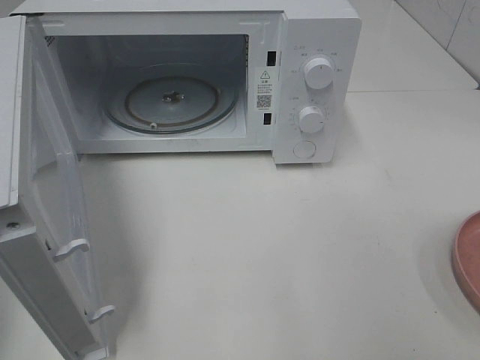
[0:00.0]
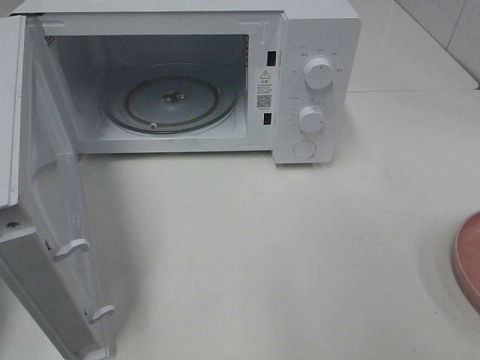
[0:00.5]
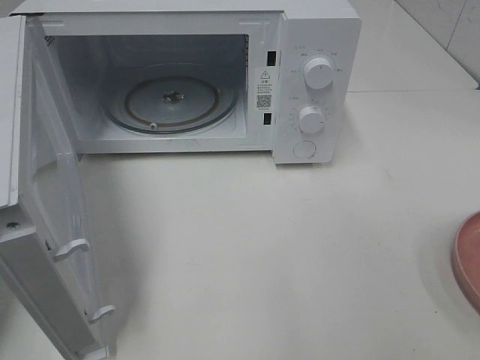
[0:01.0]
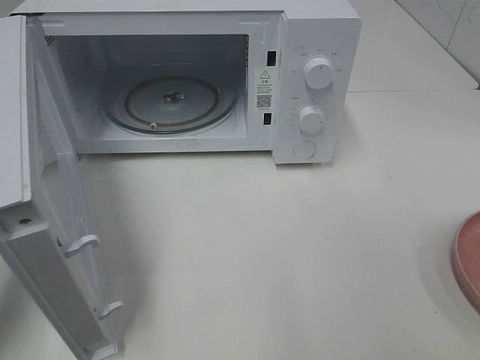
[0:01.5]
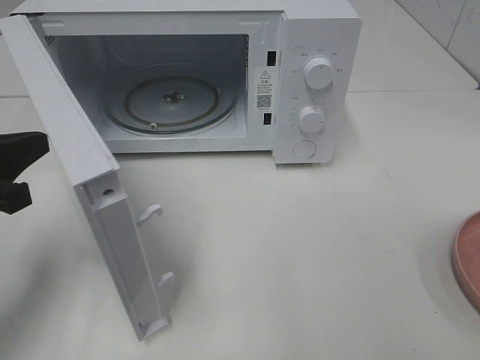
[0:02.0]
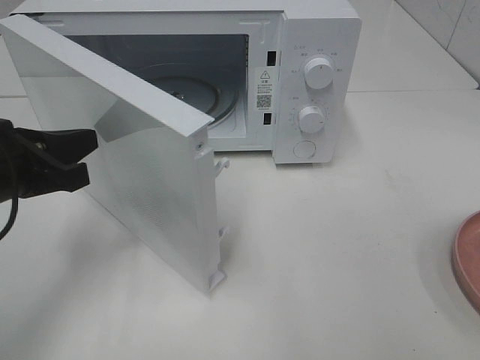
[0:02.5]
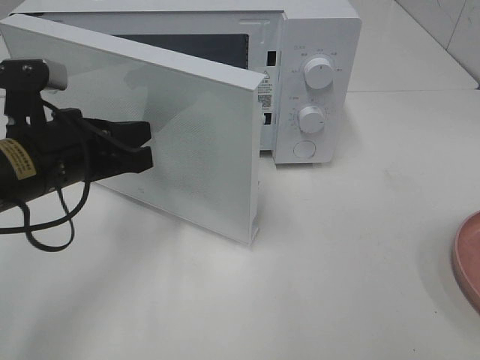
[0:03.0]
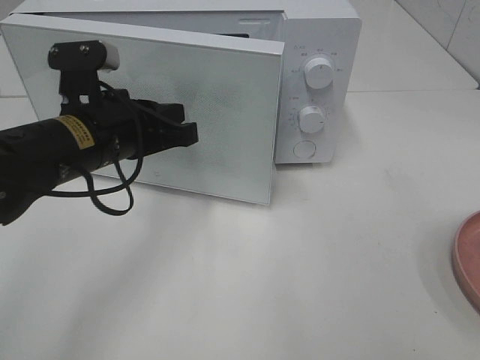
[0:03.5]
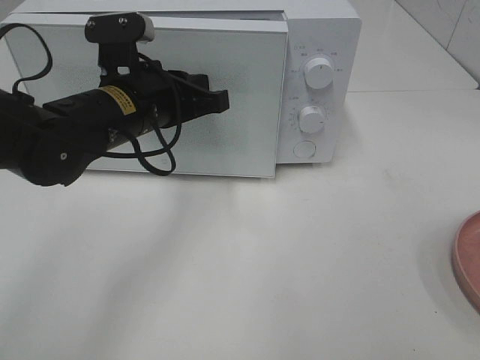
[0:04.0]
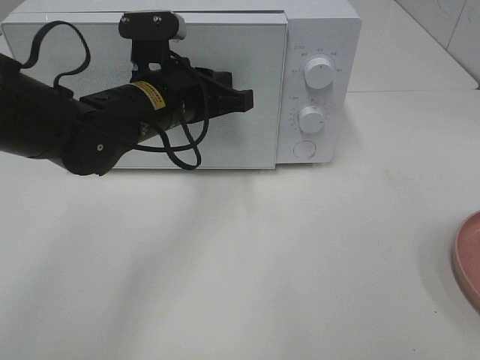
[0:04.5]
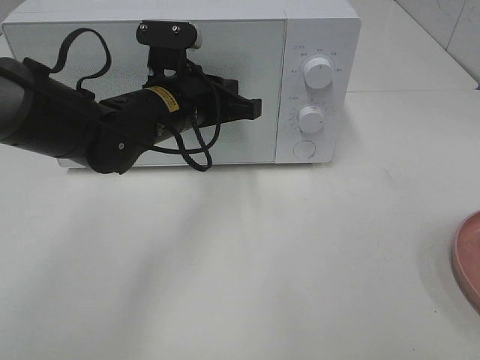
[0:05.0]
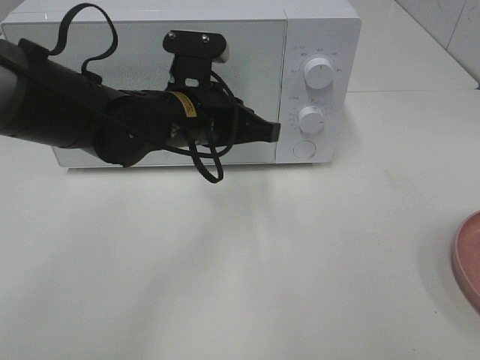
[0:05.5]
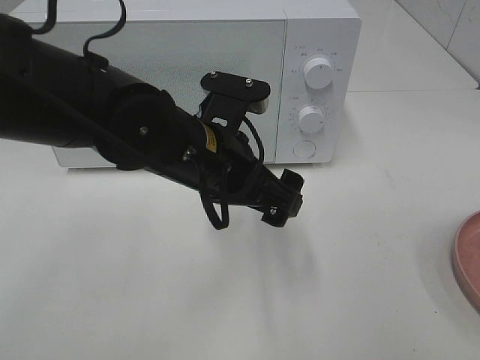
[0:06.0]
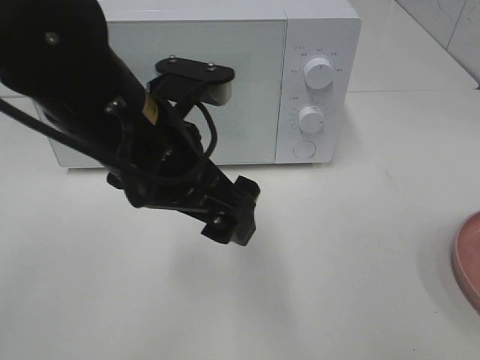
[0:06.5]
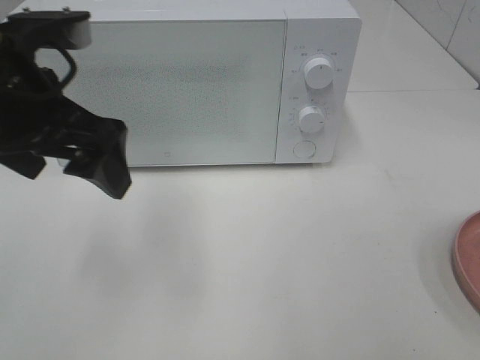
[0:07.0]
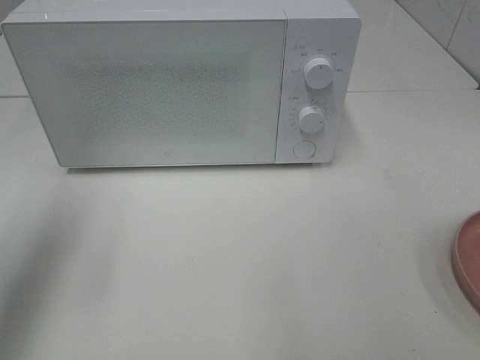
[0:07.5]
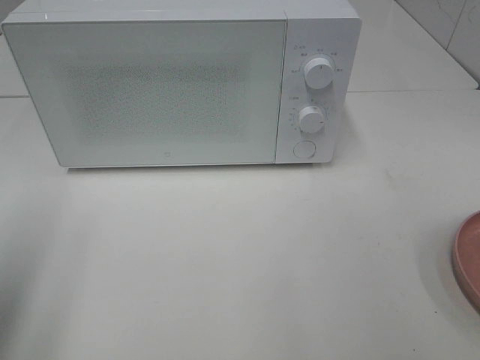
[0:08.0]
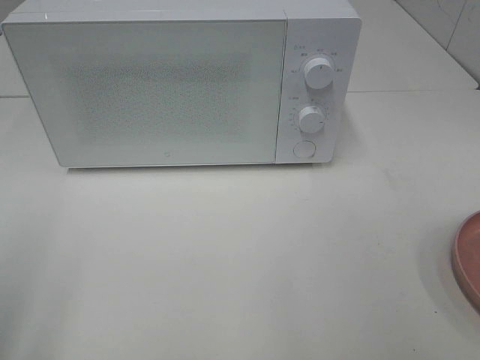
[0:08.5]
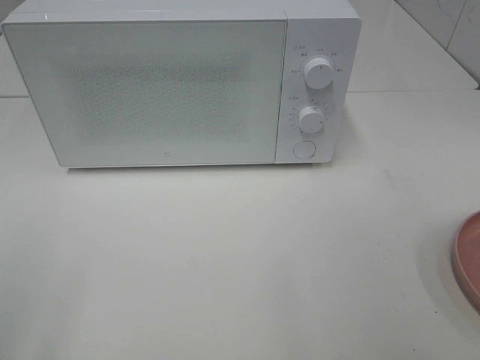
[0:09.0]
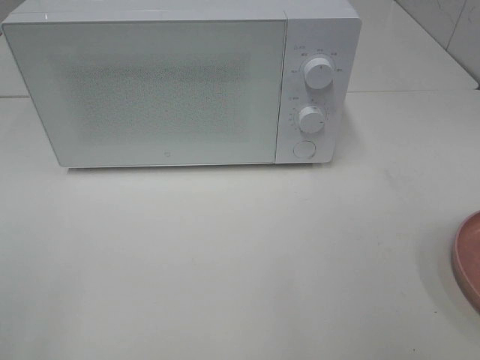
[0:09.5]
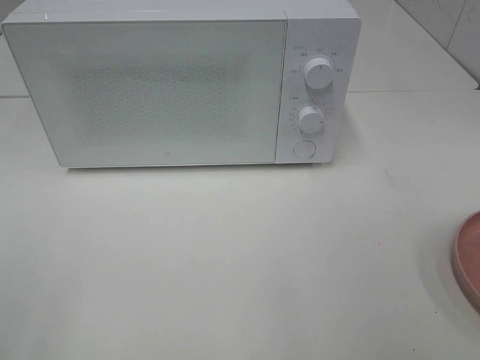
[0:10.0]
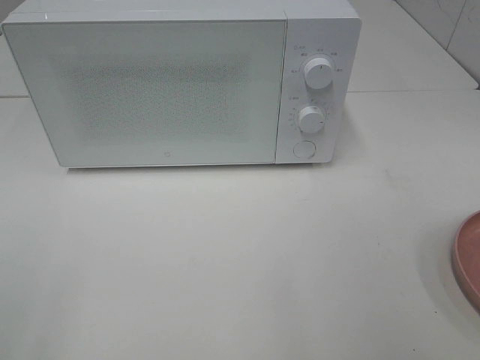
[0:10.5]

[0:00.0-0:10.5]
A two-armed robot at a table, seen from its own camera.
Task of the whole recording: Heat the burger.
Step, 0:00.0 to 0:05.0: Left hand: close the microwave door.
0:00.0 to 0:02.0: The left gripper is displaced forward, downward and to the right by about 15 cm.
0:02.0 to 0:04.0: The left gripper travels to the right and forward by some 20 cm.
0:04.0 to 0:06.5: The left gripper travels backward and upward by roughly 10 cm, and opens its fingers.
0:06.5 to 0:08.5: The left gripper heads to the left and backward, covering about 30 cm.

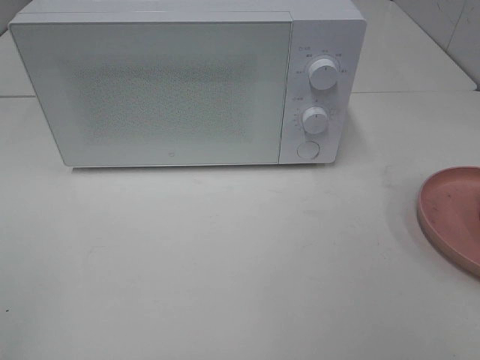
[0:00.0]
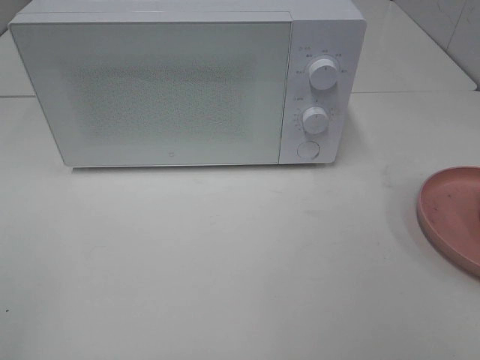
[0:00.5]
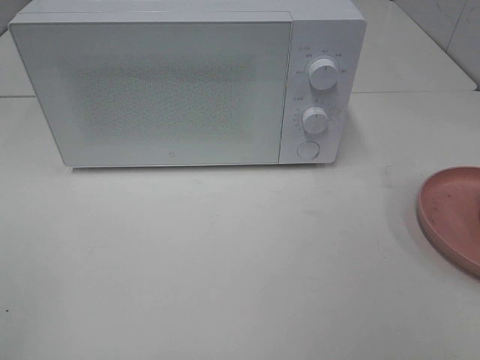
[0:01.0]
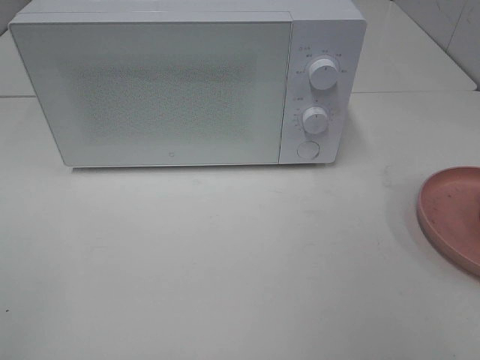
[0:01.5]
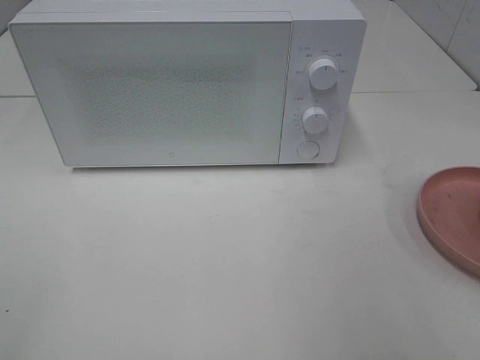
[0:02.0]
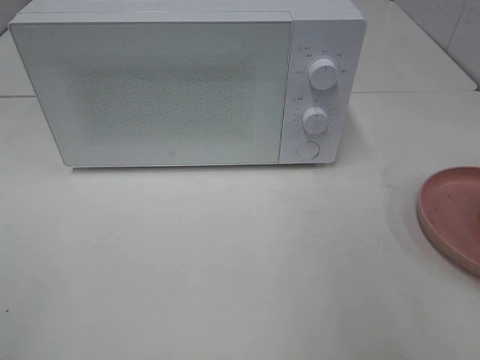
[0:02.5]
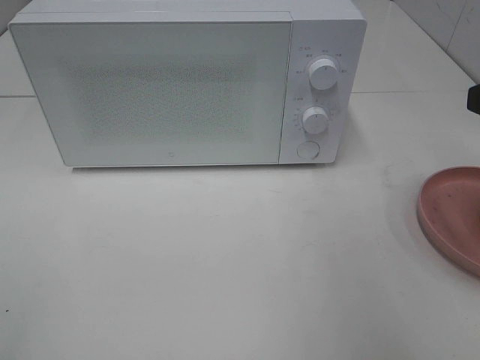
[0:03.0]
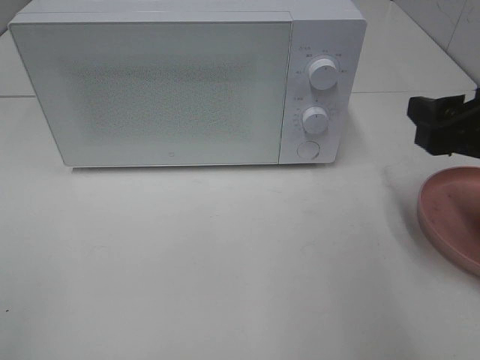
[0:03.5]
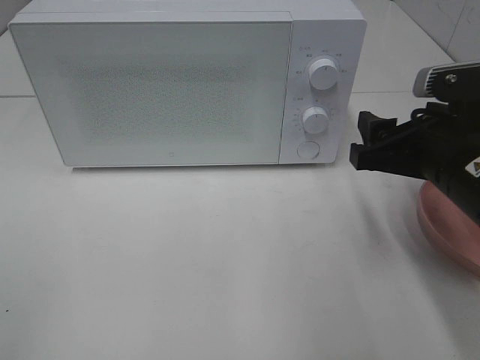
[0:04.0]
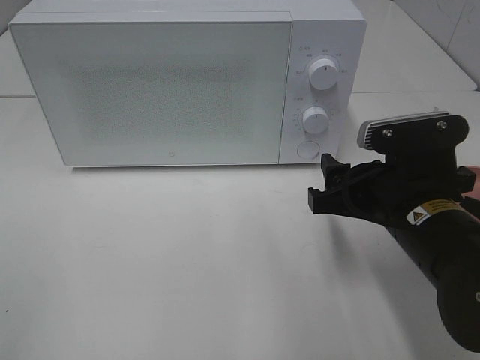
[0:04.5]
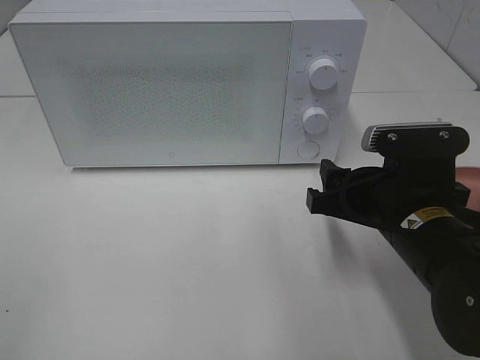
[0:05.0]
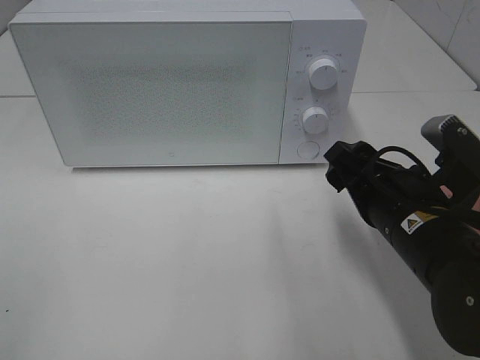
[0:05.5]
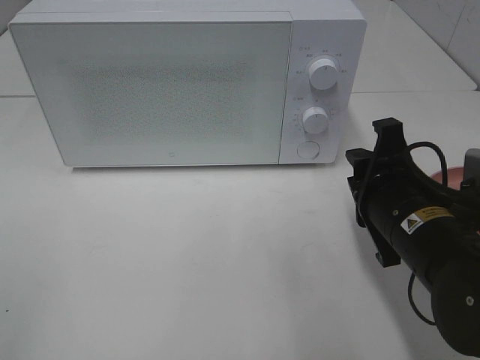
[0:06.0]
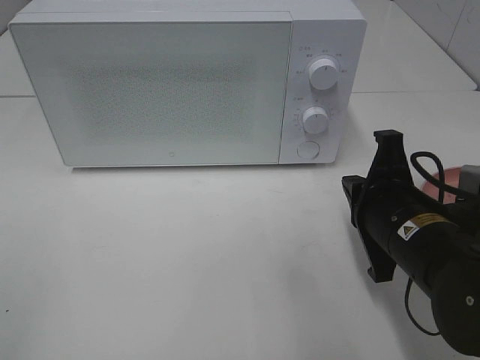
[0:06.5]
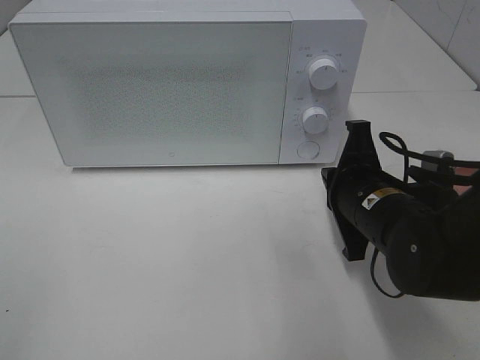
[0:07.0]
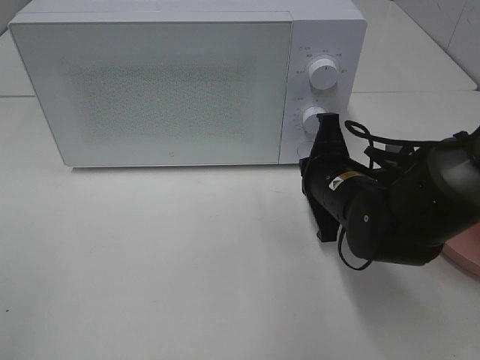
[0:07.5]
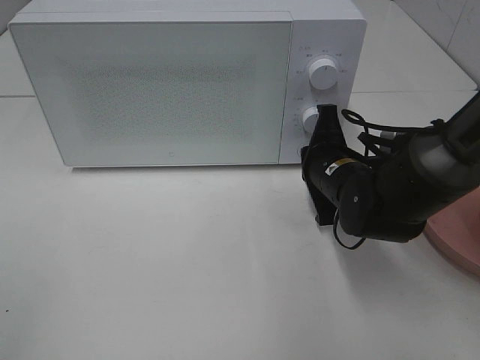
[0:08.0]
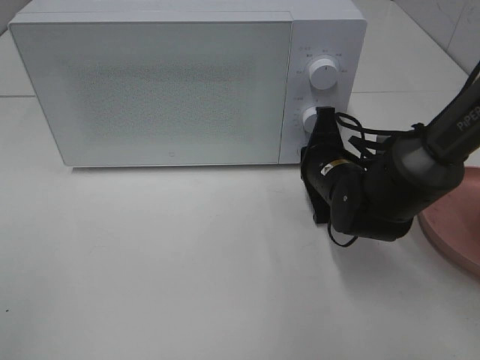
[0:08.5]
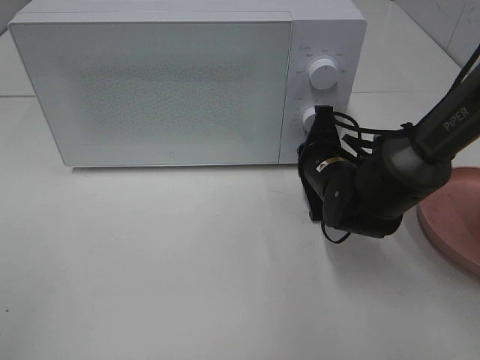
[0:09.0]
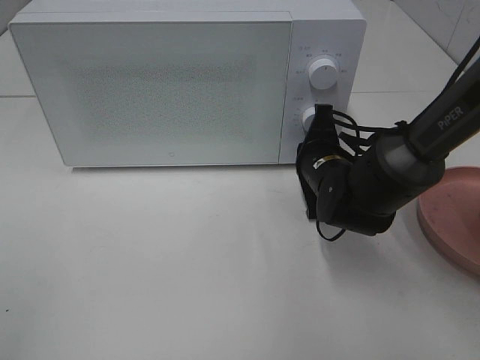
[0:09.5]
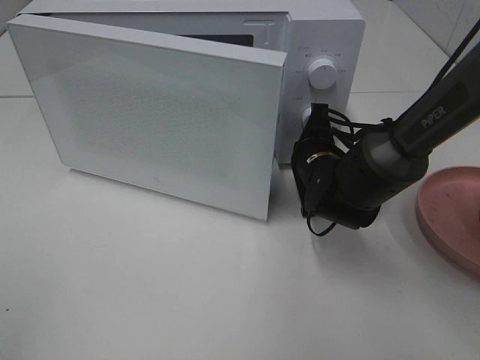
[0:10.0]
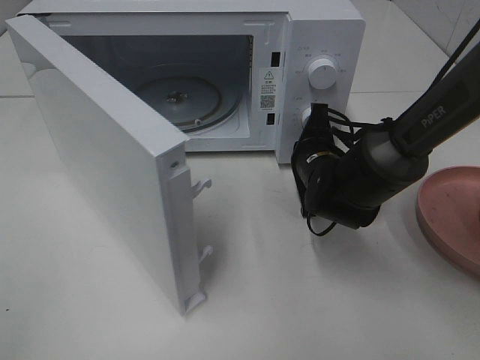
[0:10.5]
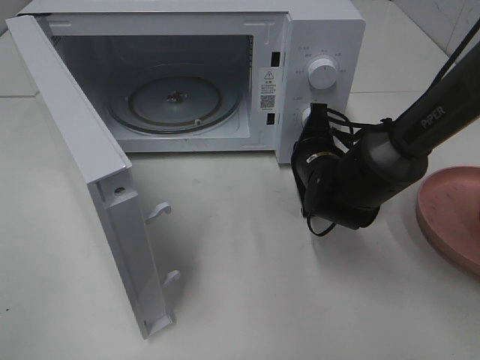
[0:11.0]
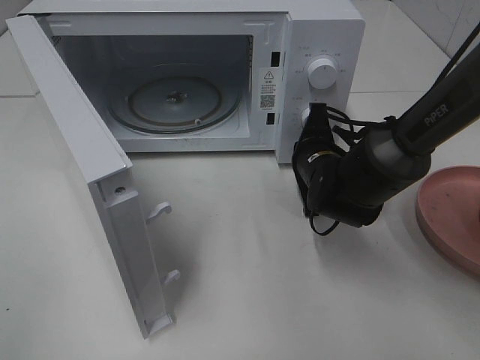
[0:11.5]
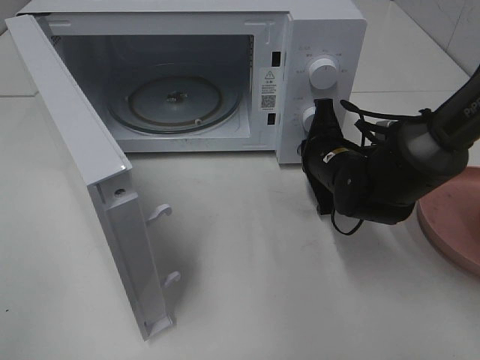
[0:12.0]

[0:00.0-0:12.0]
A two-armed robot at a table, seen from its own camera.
Task of the whole recording: Heat the burger.
0:02.0 to 0:04.0: The right gripper shifts about 20 cm forward, downward and to the left.
0:04.0 to 0:06.0: The right gripper shifts by approximately 5 cm, and closes its fingers.
0:06.0 to 0:08.0: The right gripper moves forward, about 10 cm, and closes.
0:08.0 to 0:10.0: There are only small adjustments of the grippers.

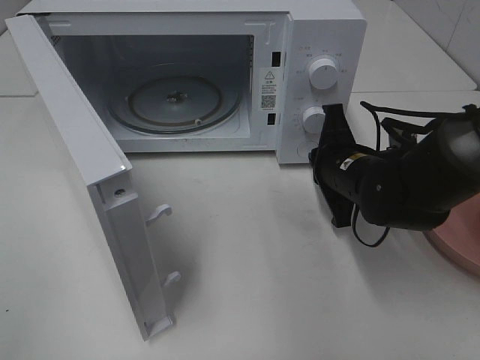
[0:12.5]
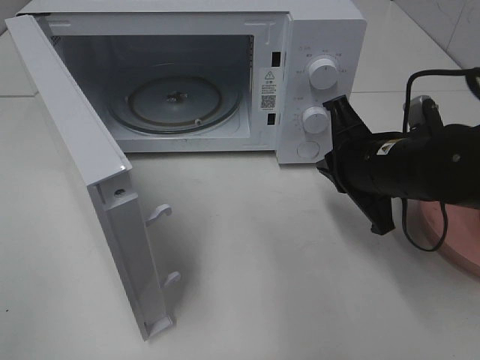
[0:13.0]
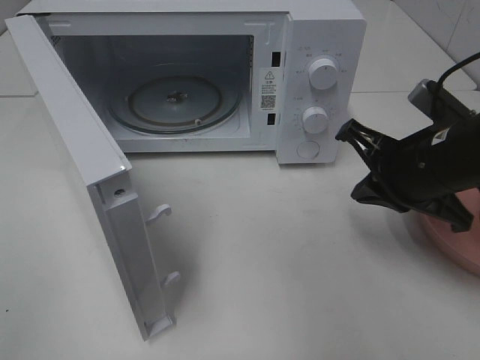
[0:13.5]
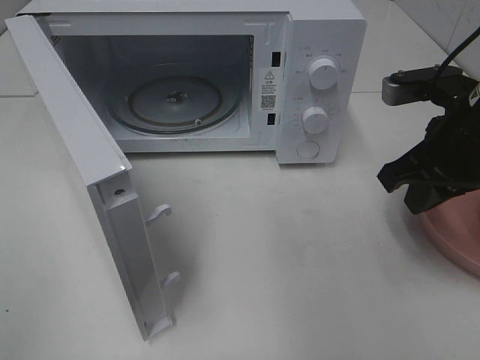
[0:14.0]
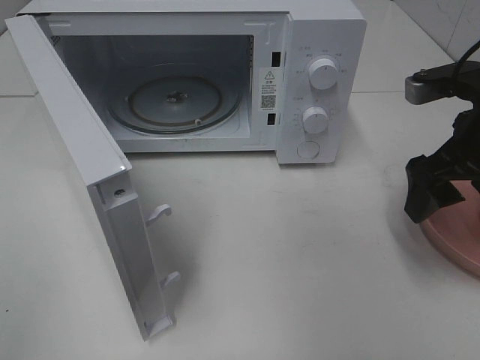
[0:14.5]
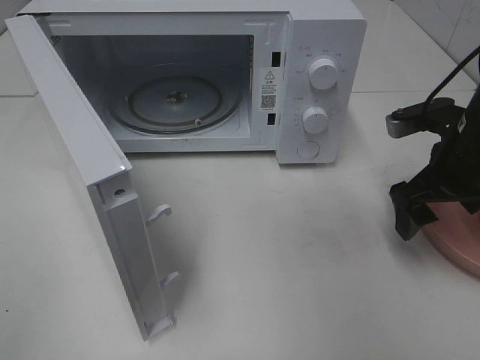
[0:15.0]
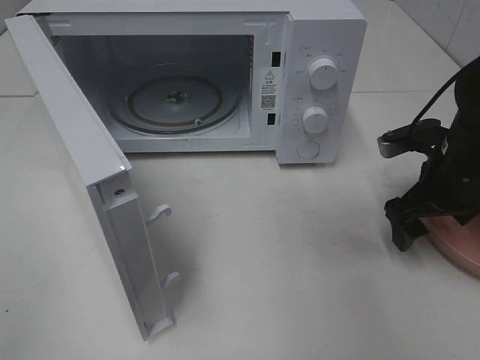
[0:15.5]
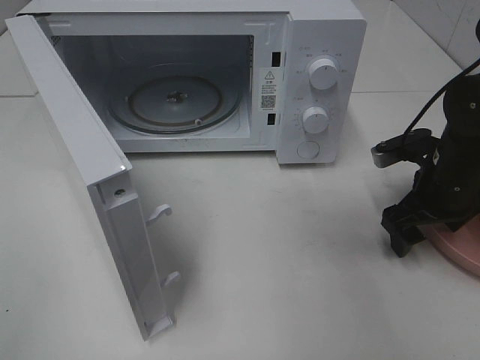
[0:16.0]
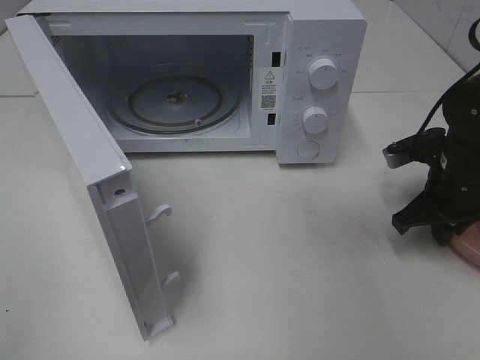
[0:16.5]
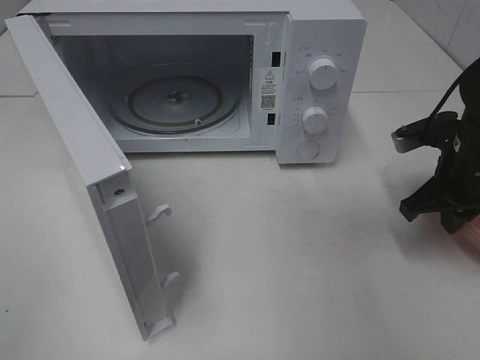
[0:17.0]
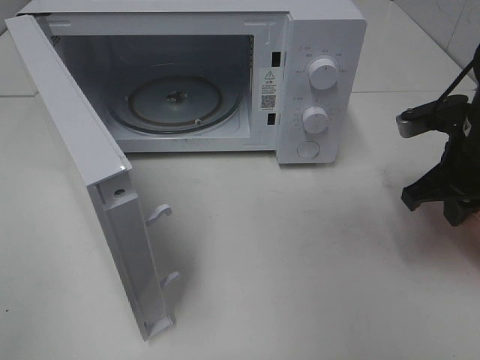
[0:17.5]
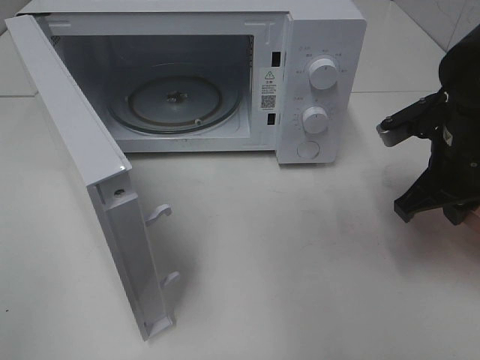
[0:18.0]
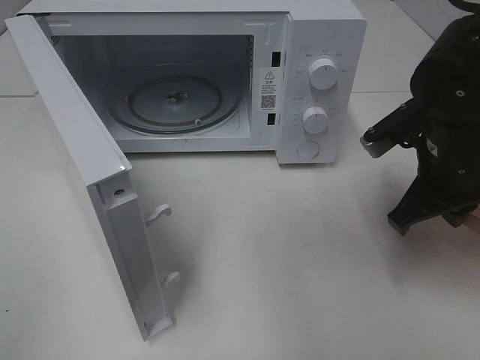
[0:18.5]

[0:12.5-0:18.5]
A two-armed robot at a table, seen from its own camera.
Task of the whole recording: Heat the burger.
Step, 0:12.5 to 0:16.5: Right hand: grab the plate with the hamburger.
0:12.5 to 0:14.5: The right gripper moves upward, to the right and backward, approximately 15 cm, and opens.
0:14.5 to 0:16.5: The right gripper travels downward by some 10 cm, and closes up.
0:16.5 to 0:18.5: The right gripper travels upward and to the left by approximately 10 cm.
